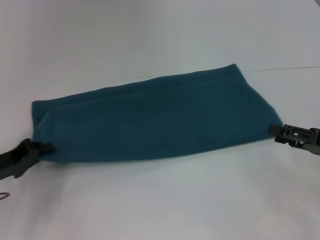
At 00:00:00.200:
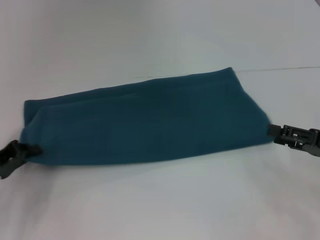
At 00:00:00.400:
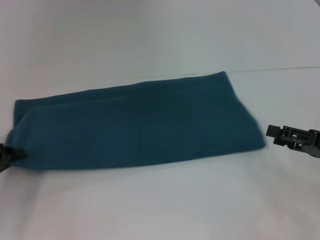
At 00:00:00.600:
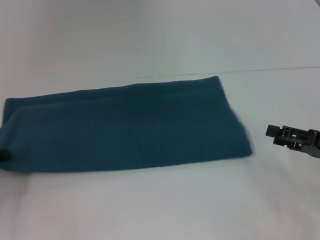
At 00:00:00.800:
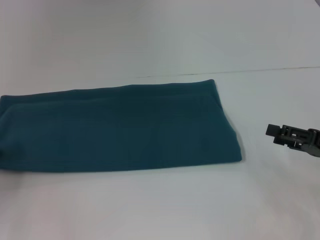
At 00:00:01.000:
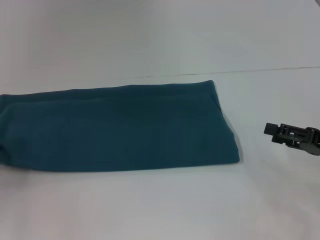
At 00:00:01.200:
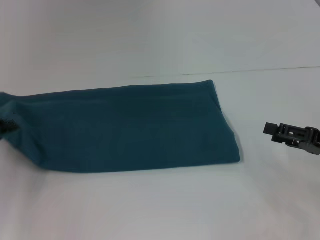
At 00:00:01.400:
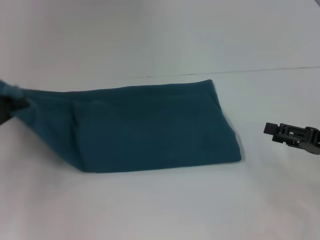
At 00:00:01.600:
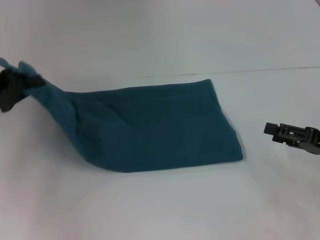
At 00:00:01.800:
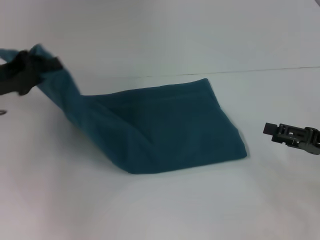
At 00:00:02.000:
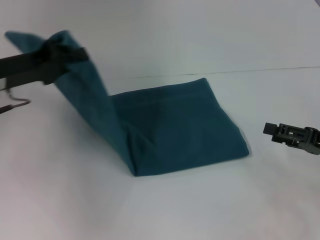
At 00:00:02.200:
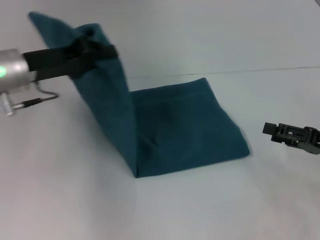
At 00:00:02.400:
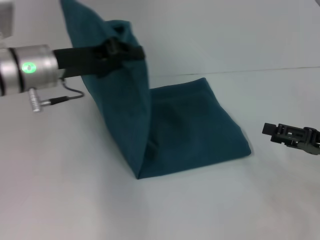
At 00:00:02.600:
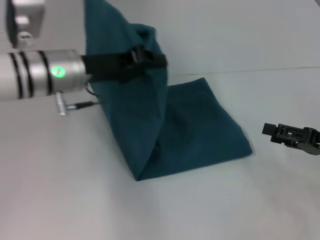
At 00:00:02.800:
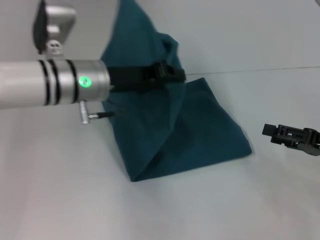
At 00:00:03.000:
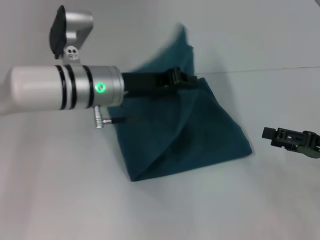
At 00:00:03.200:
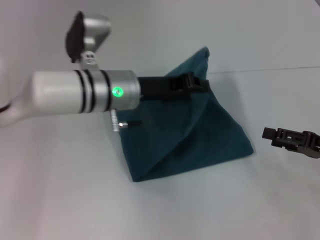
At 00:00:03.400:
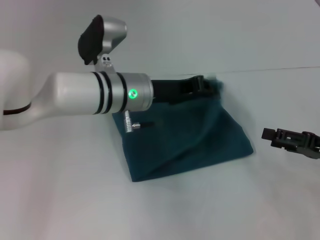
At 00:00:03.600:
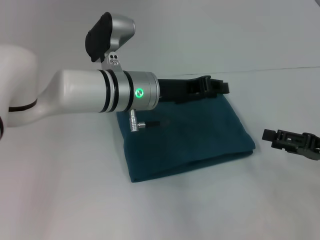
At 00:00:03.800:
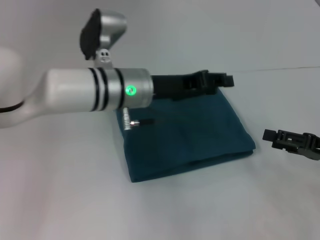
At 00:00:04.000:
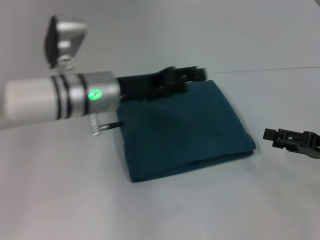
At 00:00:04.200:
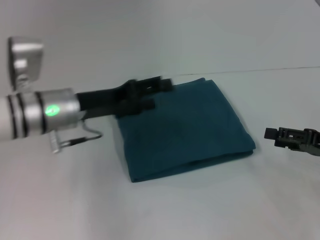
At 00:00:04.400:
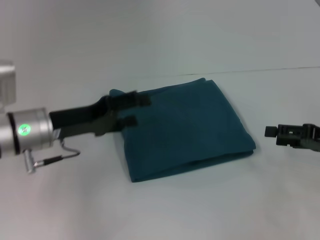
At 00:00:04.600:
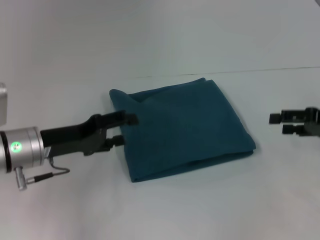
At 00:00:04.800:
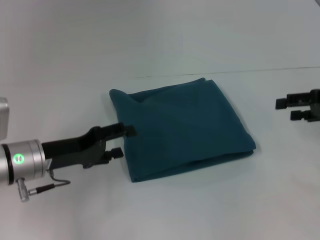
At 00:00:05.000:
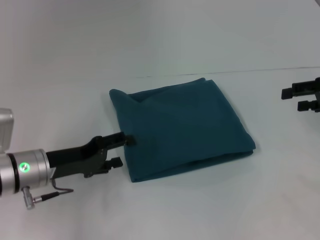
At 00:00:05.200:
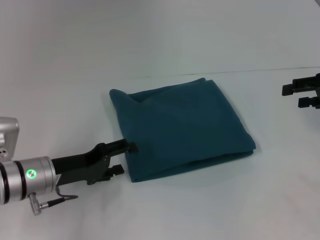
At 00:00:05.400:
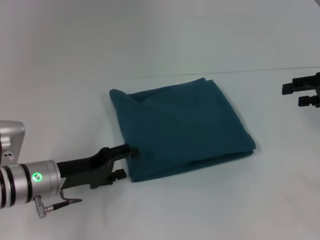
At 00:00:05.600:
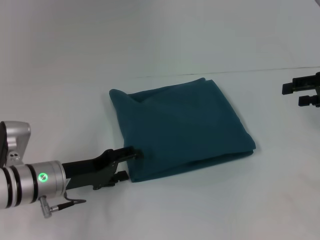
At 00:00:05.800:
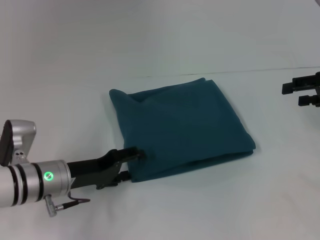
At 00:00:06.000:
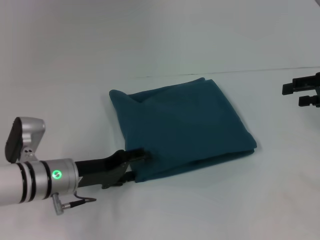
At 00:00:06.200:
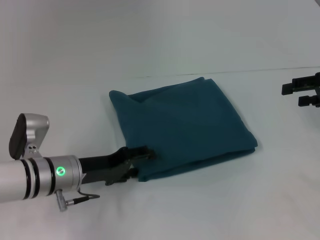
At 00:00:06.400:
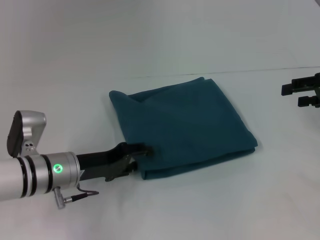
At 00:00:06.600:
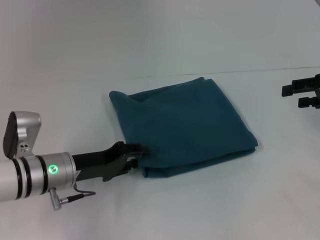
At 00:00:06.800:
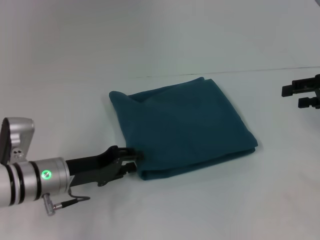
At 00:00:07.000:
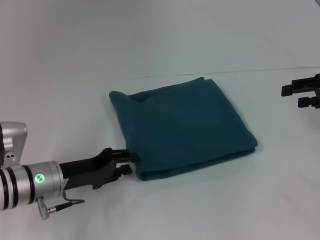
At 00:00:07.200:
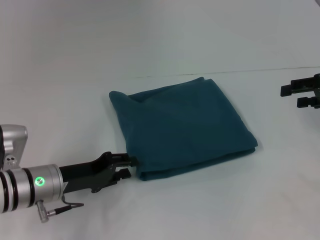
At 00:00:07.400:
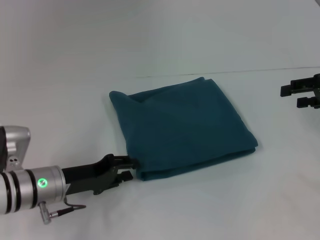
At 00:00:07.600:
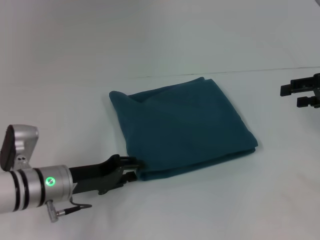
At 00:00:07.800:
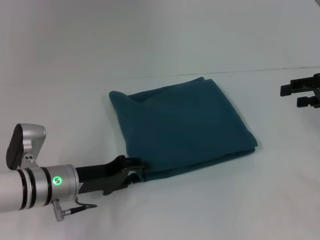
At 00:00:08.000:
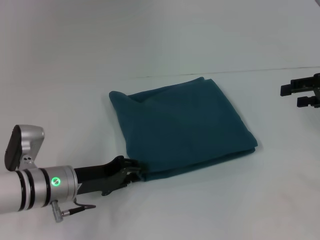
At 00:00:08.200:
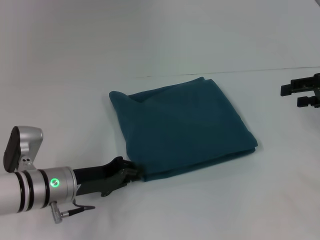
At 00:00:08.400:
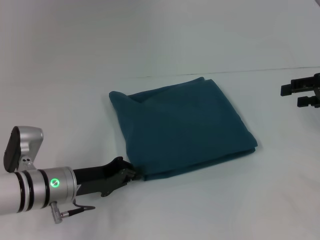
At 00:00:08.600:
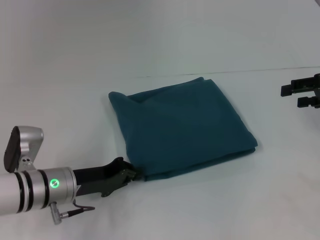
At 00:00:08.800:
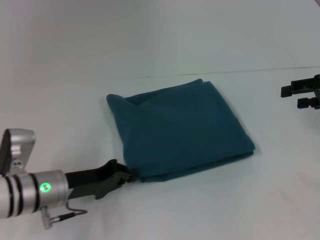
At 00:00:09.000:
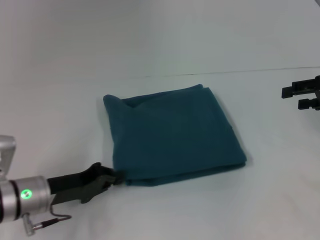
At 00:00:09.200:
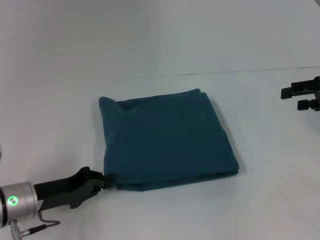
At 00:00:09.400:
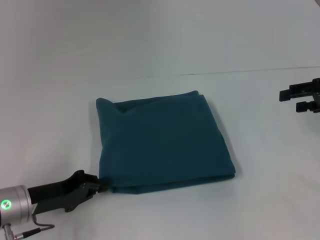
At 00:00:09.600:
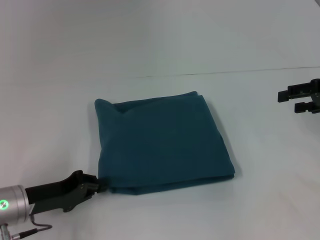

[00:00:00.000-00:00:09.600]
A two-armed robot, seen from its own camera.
Step, 00:00:00.000 to 00:00:03.400: Fold the clothes to the left.
00:00:00.000 to 00:00:01.600: The left gripper moves upward, some 10 cm.
00:00:01.600 to 00:00:03.200: The left gripper is displaced to the right by roughly 25 cm.
00:00:03.200 to 00:00:04.800: The right gripper heads forward and upward, covering about 10 cm. Meanwhile the left gripper heads to the left, downward and backward, covering some 15 cm, and opens up.
00:00:04.800 to 00:00:06.400: The left gripper shifts by some 5 cm.
00:00:06.400 to 00:00:08.000: The grippers stay close to where they were, moving slightly.
00:00:08.000 to 00:00:09.600: The left gripper travels to the left by some 5 cm, and closes.

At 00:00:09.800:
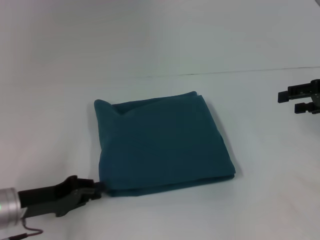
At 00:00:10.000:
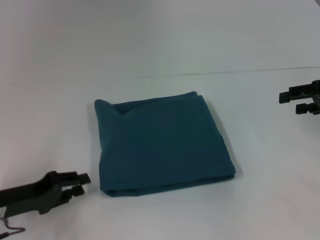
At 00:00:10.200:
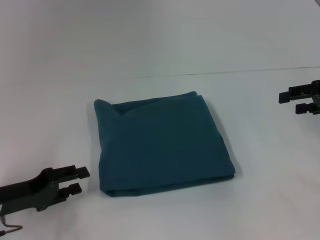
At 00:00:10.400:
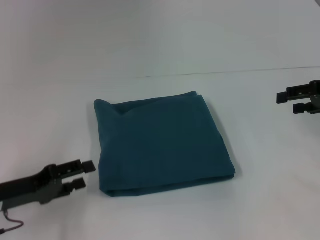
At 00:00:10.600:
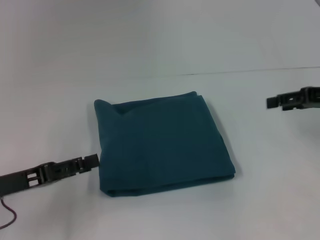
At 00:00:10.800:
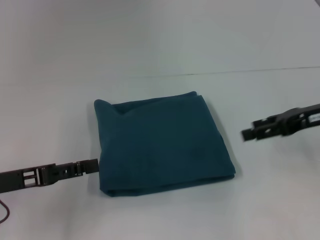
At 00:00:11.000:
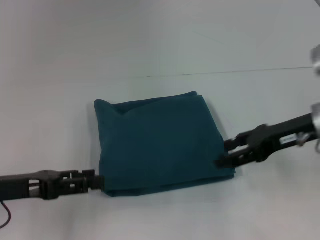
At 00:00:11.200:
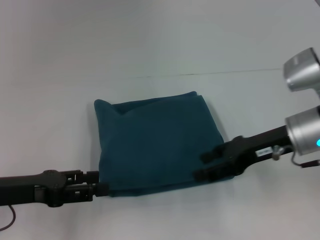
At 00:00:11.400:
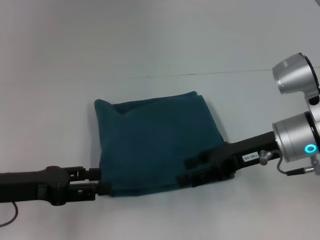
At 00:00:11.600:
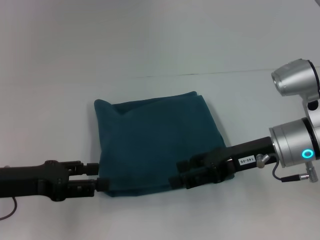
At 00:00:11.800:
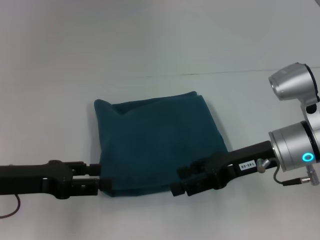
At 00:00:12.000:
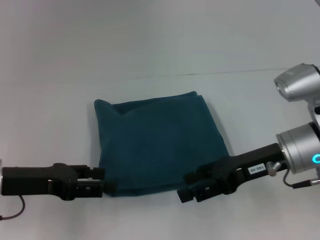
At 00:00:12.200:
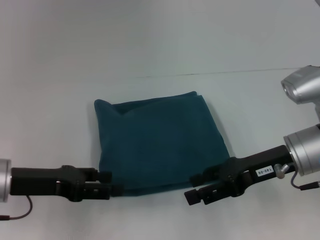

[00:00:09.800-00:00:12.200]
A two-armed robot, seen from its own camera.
00:00:09.800 to 00:00:11.000: The right gripper goes approximately 10 cm to the left. The left gripper moves upward, approximately 5 cm, and opens up.
00:00:11.000 to 00:00:12.200: The right gripper moves about 5 cm.
